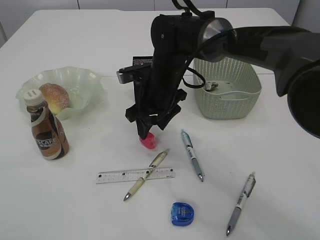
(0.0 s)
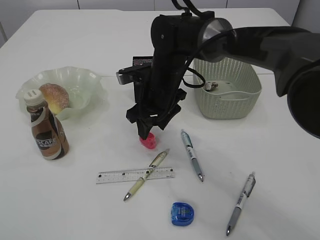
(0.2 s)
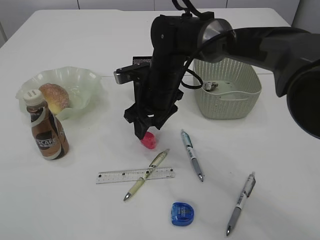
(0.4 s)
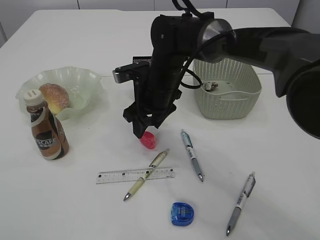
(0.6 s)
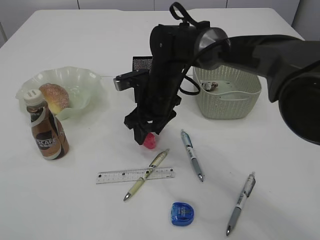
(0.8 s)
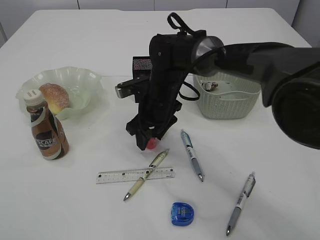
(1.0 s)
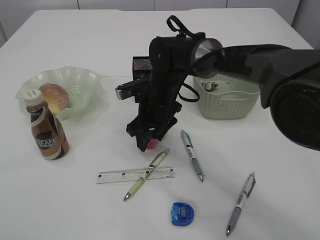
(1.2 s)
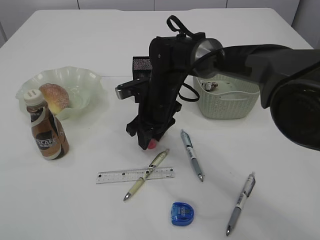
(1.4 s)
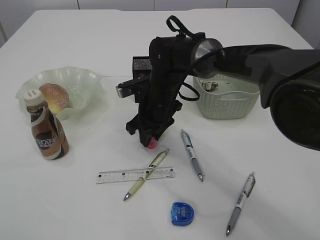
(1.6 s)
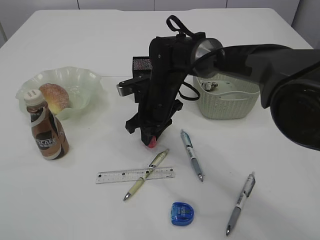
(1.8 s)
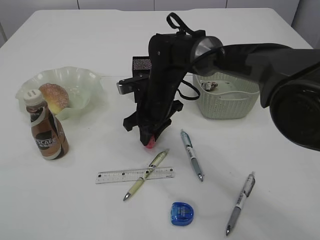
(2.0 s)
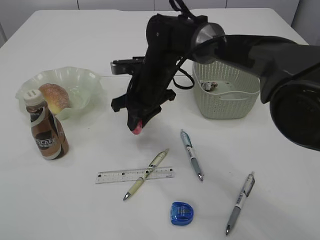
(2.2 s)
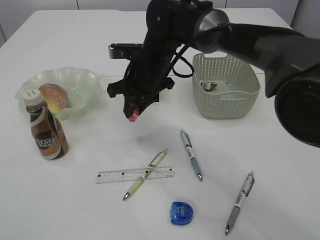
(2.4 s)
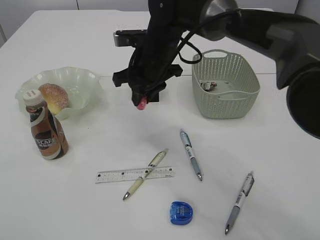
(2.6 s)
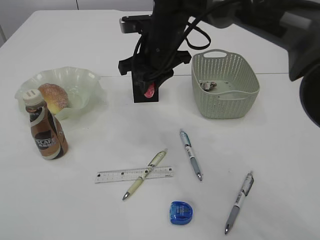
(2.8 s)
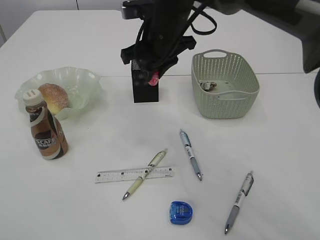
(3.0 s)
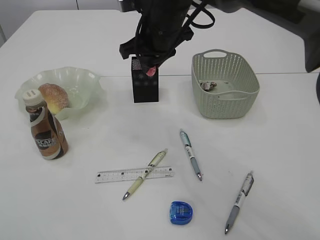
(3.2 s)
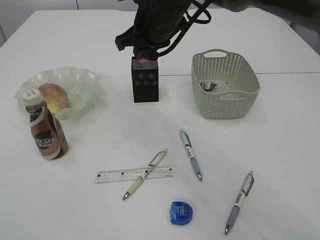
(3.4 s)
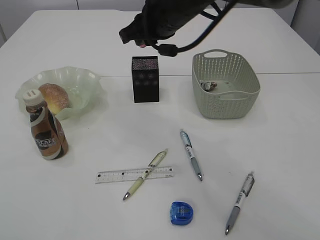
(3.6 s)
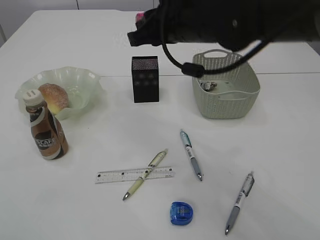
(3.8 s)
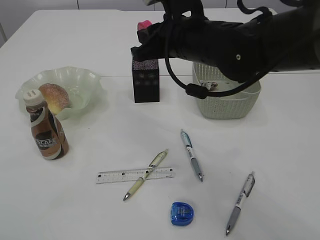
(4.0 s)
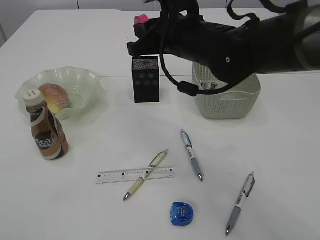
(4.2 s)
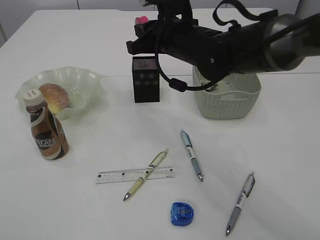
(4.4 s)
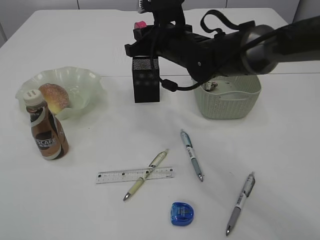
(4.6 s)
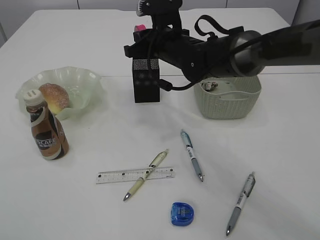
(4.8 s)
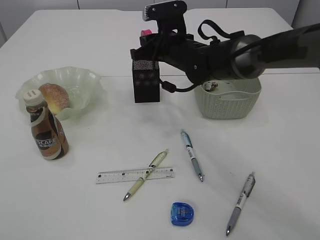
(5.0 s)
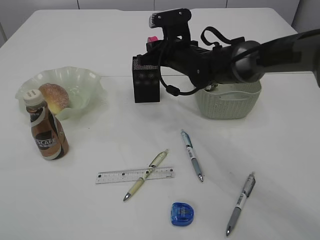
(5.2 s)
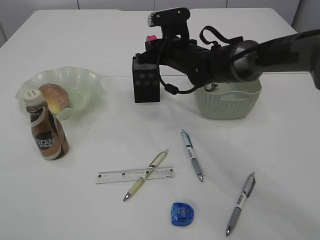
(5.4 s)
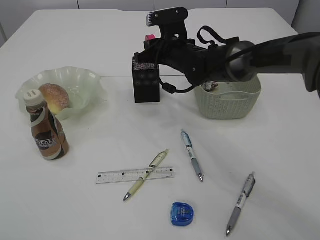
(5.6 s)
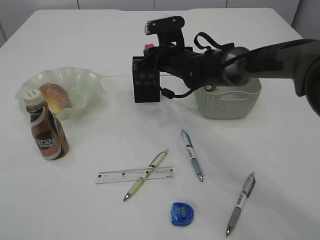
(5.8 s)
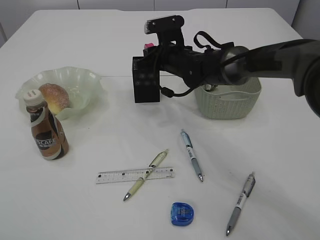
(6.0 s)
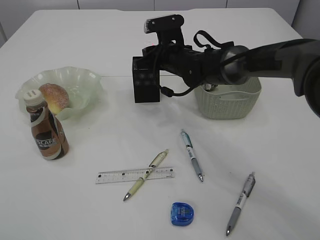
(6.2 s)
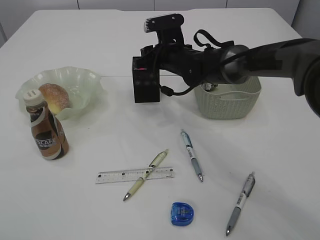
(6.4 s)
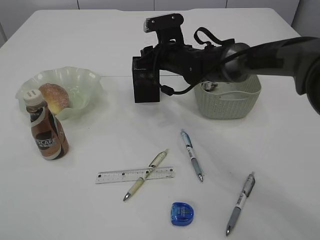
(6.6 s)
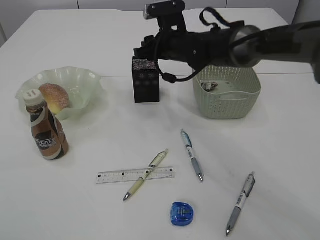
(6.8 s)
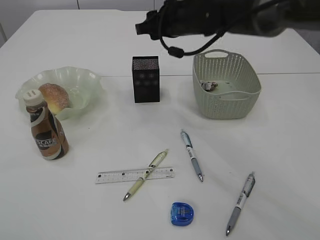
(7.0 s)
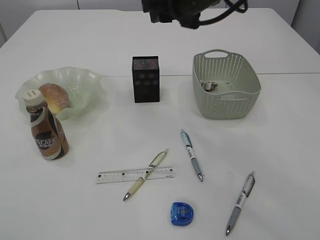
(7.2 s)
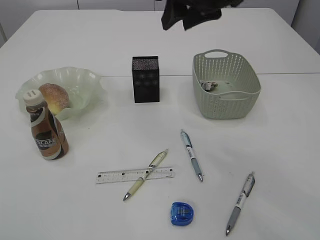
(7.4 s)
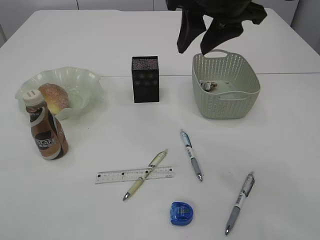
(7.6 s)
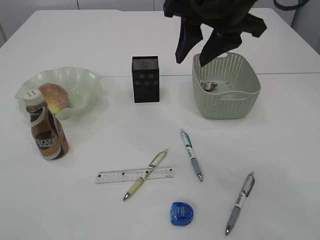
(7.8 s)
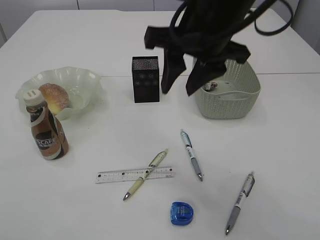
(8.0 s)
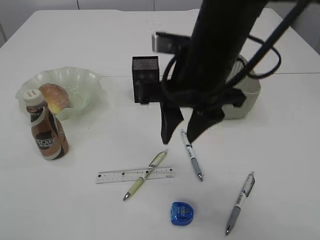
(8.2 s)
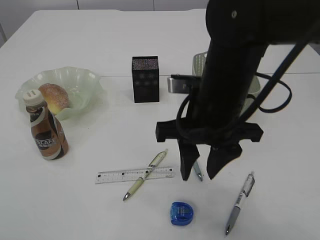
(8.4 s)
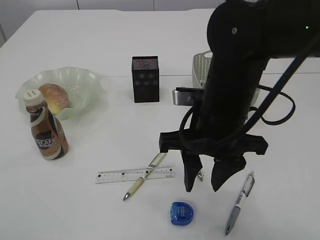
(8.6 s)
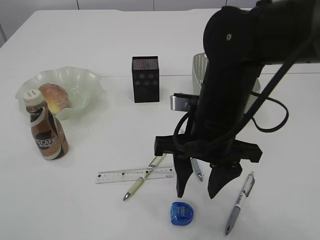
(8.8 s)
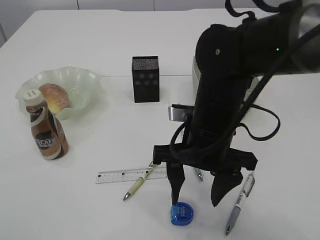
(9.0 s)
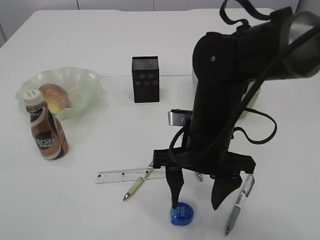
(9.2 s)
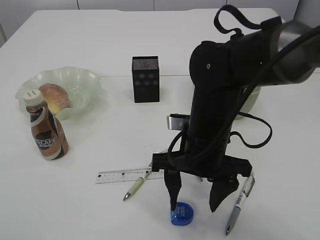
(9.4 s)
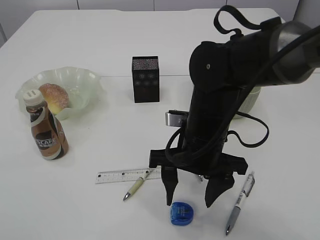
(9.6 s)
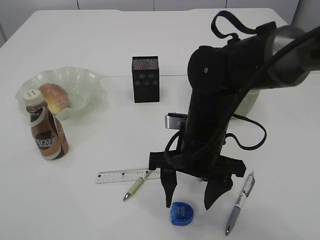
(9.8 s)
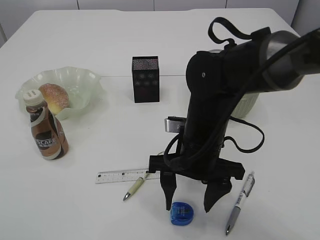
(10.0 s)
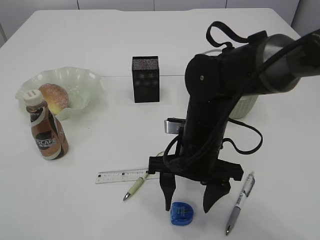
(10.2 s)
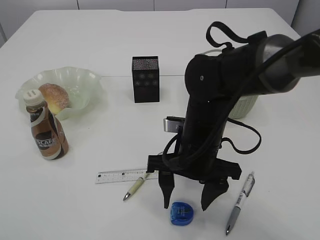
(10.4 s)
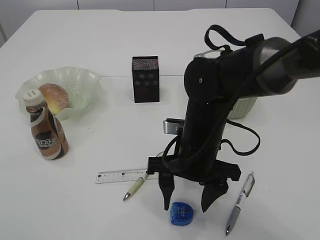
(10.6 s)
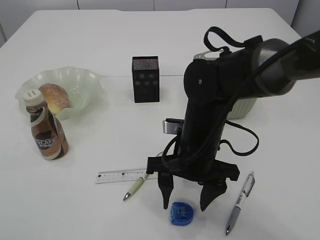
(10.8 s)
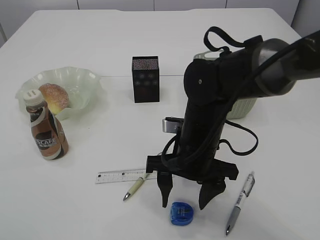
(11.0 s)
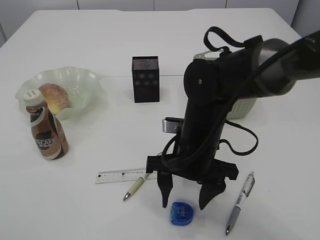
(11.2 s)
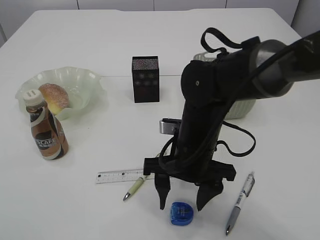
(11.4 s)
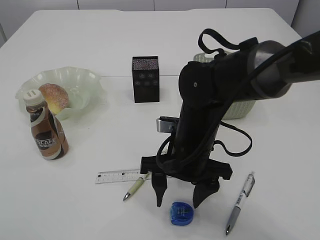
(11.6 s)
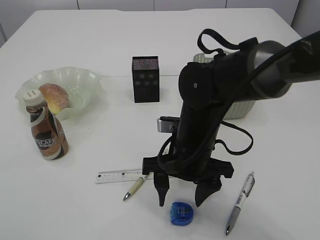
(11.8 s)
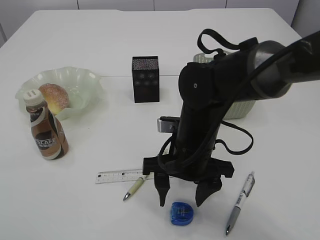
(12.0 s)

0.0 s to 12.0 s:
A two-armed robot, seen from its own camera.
Step, 0.0 to 2.6 s: Pick up the red pencil sharpener.
Step, 0.0 to 2.6 s: pick up the red pencil sharpener.
Step, 2.8 to 6.8 s: Place the red pencil sharpener into the pen holder.
Step, 2.8 to 6.8 s: place the red pencil sharpener into the pen holder.
0.0 to 1.6 s: The grippers stay close to where they were, moving slightly.
1.6 to 3.0 s: The right gripper is displaced upward by roughly 15 cm.
4.4 to 6.0 s: The right gripper moves forward and downward, roughly 10 cm.
6.0 to 7.6 s: The right gripper heads upward and backward, covering approximately 25 cm, and opens up.
7.6 to 9.0 s: The right gripper goes approximately 20 cm downward and backward.
9.0 to 12.0 s: The grippers make only small movements.

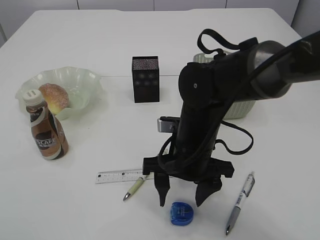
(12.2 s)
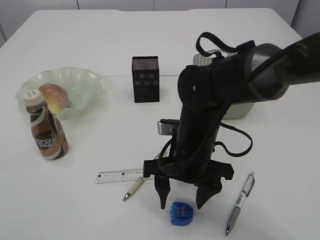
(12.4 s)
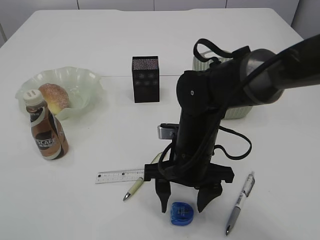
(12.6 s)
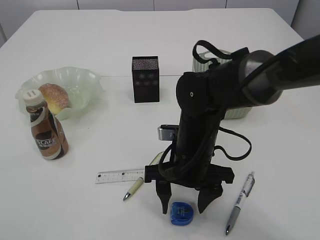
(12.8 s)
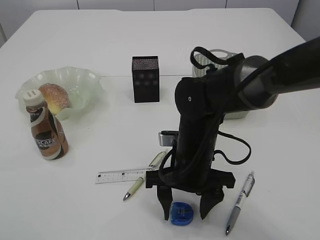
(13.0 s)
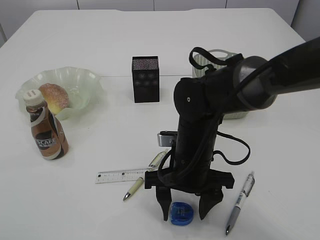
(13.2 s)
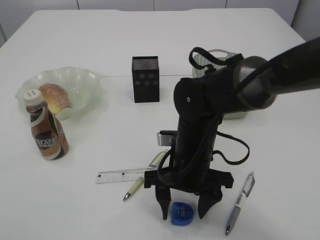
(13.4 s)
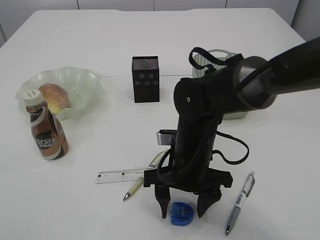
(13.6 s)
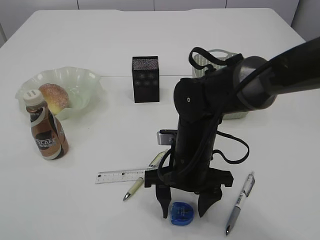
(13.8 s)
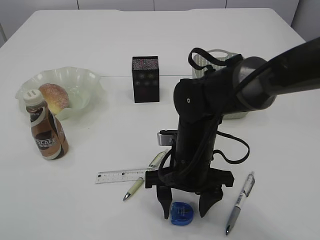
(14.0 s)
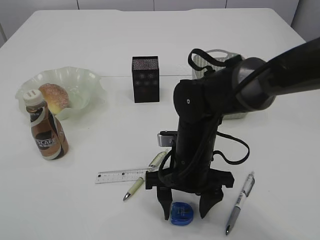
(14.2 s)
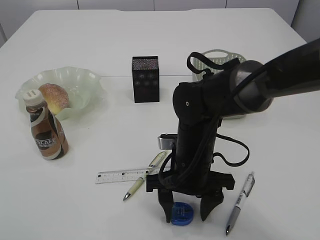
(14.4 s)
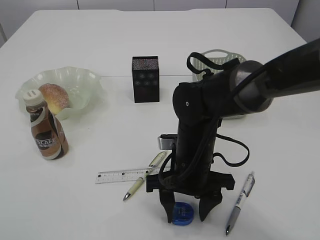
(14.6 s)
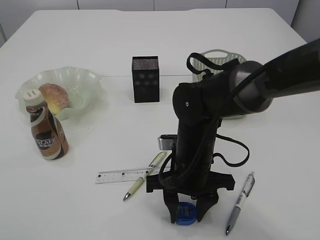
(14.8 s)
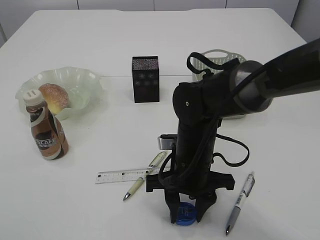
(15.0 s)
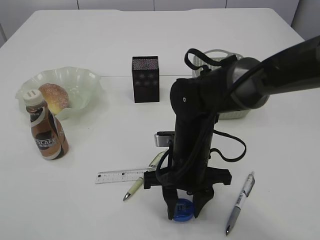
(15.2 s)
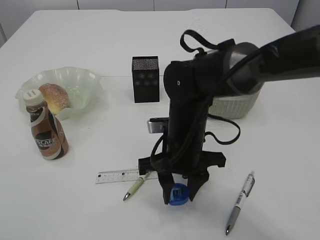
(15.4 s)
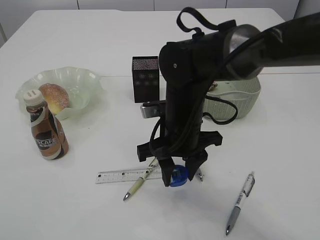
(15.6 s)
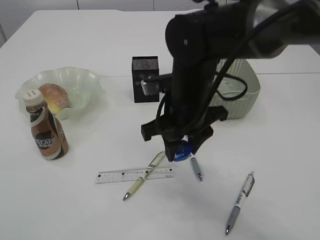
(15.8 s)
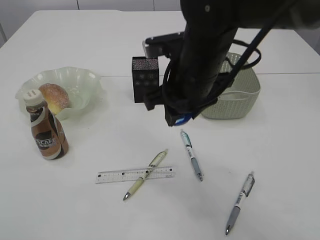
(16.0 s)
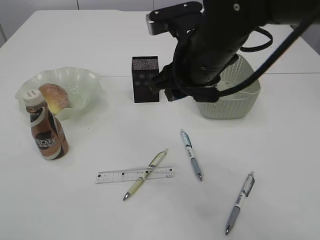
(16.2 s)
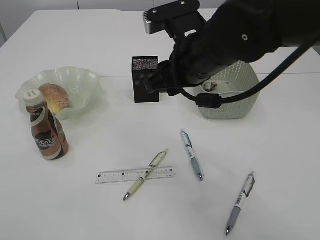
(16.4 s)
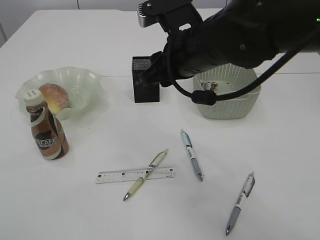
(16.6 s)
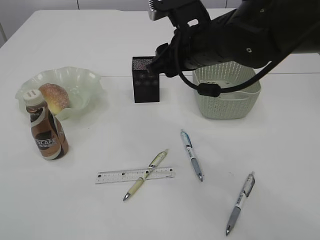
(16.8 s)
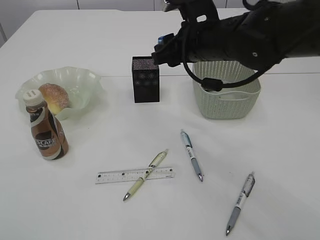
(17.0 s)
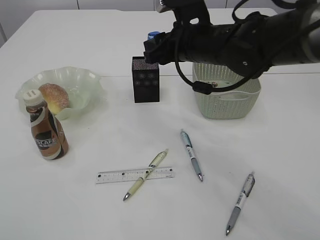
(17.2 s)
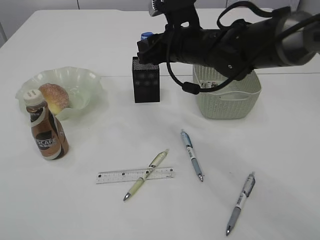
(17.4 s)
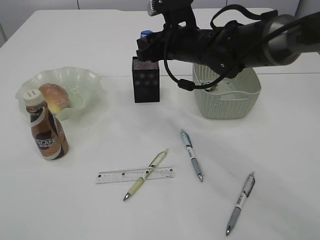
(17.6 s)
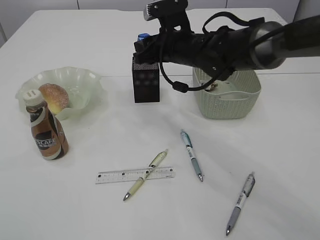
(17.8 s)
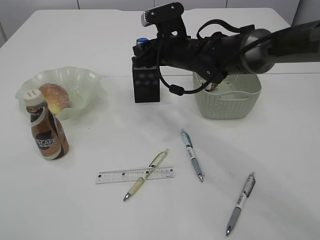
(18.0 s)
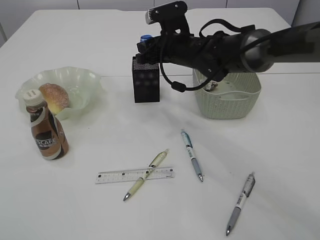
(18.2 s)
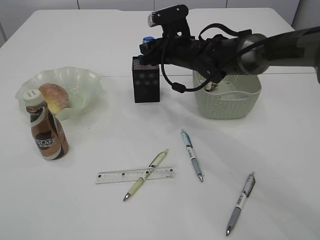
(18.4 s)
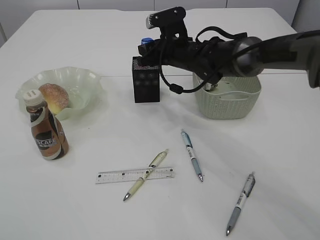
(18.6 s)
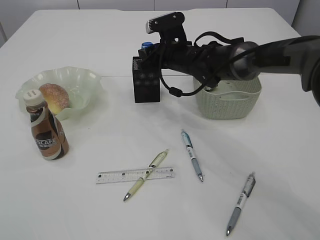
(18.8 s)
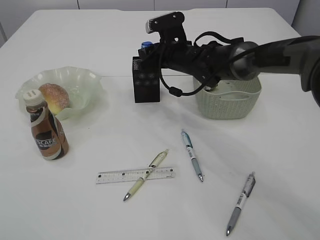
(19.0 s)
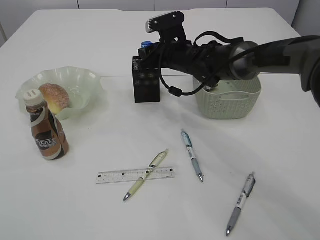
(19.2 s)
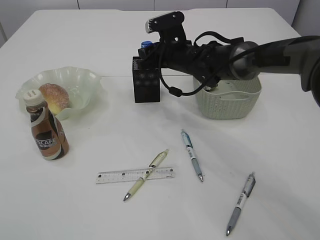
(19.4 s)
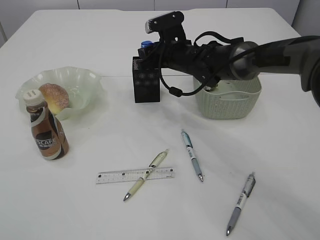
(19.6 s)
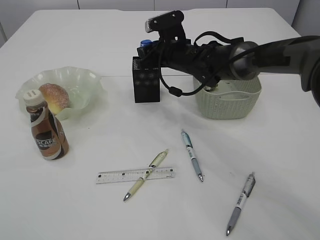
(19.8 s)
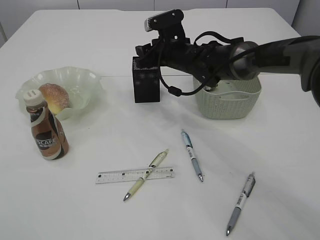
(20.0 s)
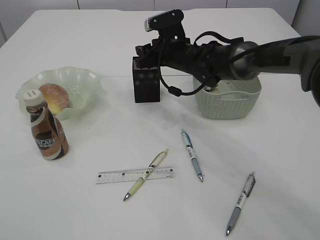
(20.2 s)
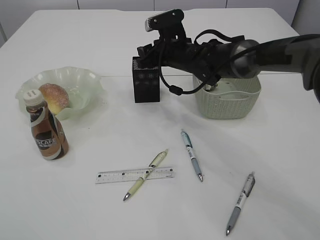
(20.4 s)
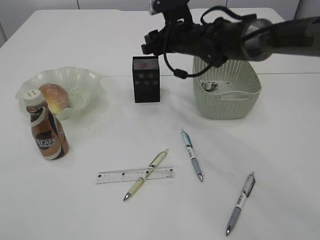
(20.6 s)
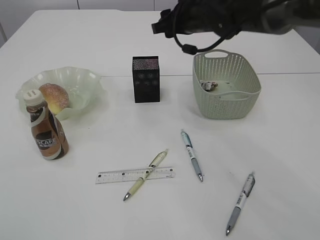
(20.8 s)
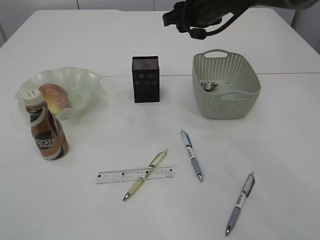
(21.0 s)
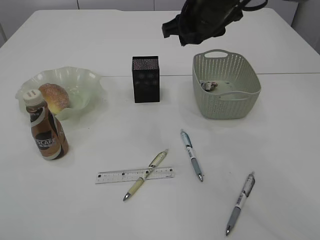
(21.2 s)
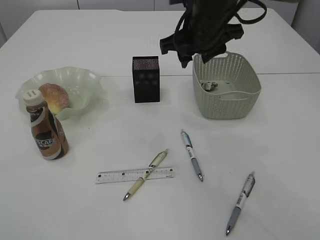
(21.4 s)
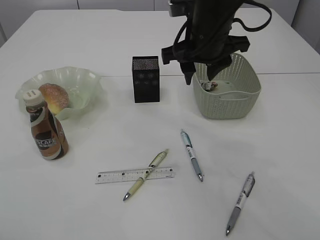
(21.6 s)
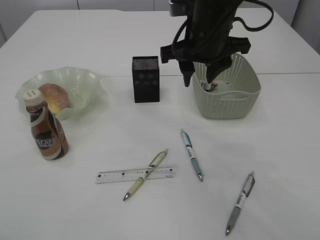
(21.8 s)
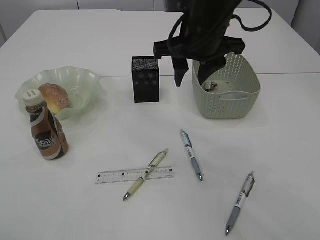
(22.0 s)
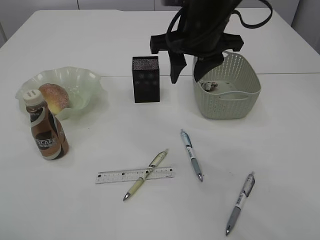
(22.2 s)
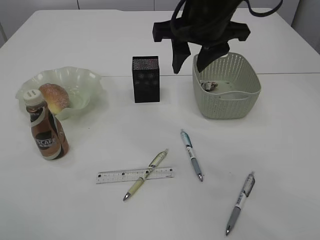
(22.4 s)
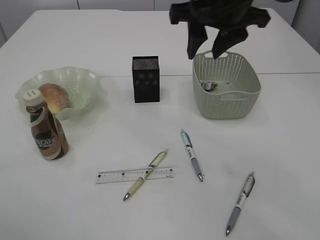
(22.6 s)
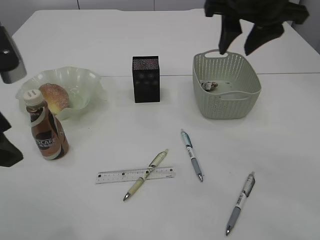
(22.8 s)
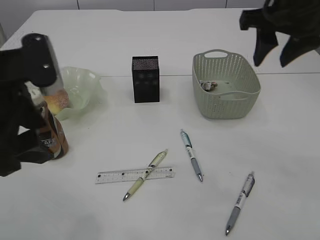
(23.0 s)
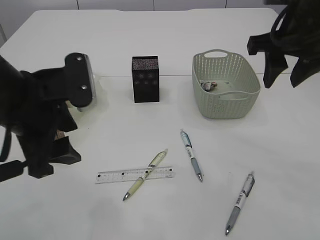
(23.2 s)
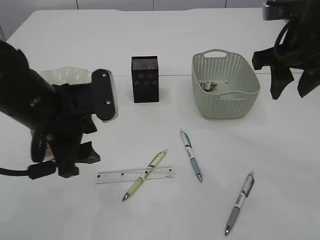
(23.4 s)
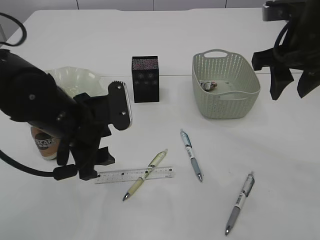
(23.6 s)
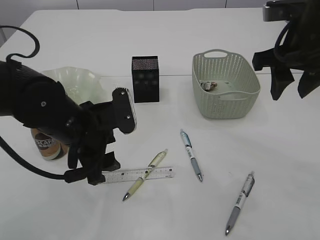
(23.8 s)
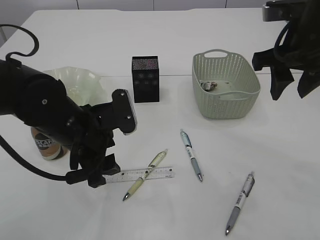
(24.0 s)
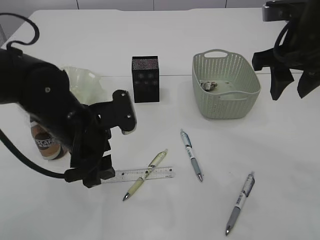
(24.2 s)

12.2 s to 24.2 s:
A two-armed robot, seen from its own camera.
Step, 12.2 to 15.6 s: Pick up the blue pencil sharpener.
Step, 12.2 to 15.6 s: pick up the blue pencil sharpener.
Step, 15.8 to 20.6 s: Place the blue pencil sharpener into the pen holder.
Step, 15.8 to 20.6 s: place the blue pencil sharpener into the pen holder.
12.2 to 13.8 s: The grippers stay close to where they were, moving slightly.
13.8 to 15.2 s: The right gripper closes up.
15.2 to 16.6 s: The right gripper goes approximately 15 cm upward.
16.6 to 18.2 s: The right gripper travels forward and downward by approximately 15 cm.
18.2 to 19.8 s: The grippers move only a little.
19.8 to 21.2 s: The right gripper heads upward and backward, covering approximately 15 cm.
21.2 to 22.6 s: The right gripper goes about 10 cm backward and upward. Meanwhile the left gripper goes some 5 cm to the right.
22.6 to 24.2 s: The right gripper moves to the right, about 10 cm. The left gripper travels downward, to the right and forward by some 20 cm.
